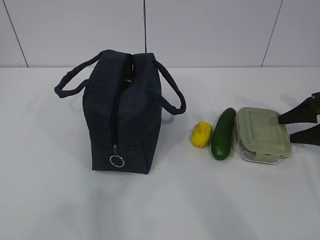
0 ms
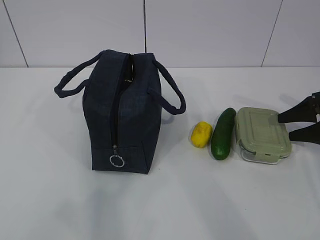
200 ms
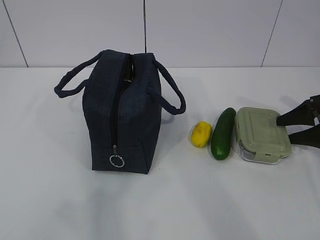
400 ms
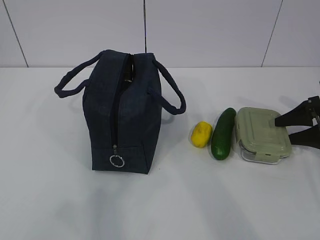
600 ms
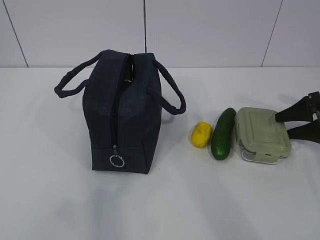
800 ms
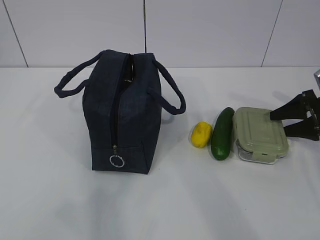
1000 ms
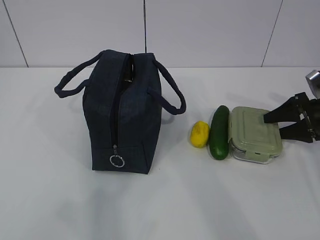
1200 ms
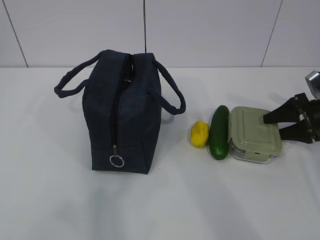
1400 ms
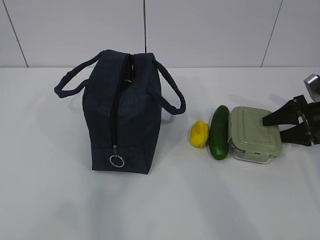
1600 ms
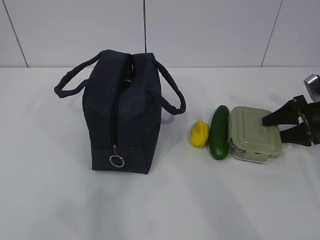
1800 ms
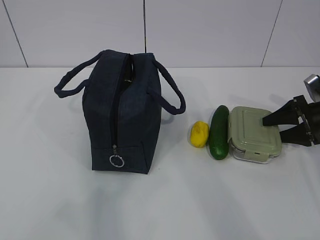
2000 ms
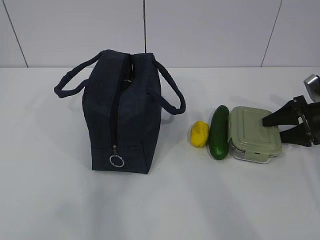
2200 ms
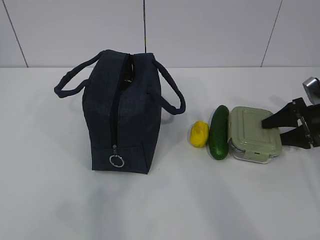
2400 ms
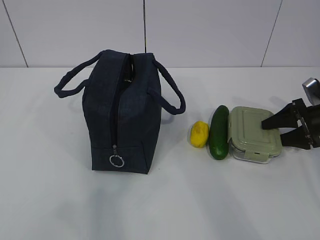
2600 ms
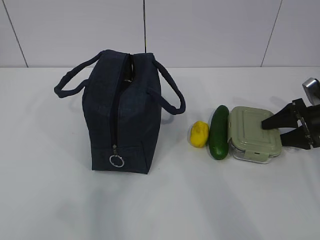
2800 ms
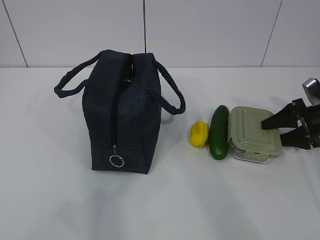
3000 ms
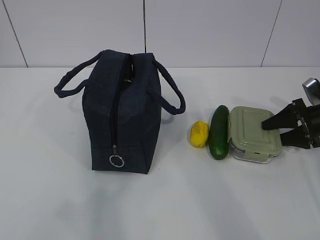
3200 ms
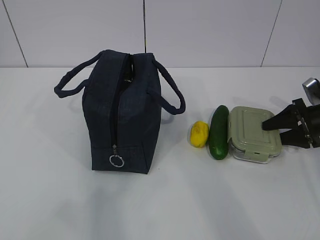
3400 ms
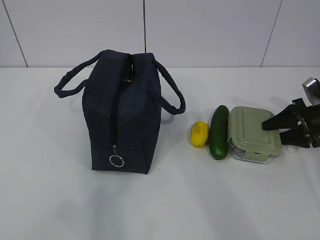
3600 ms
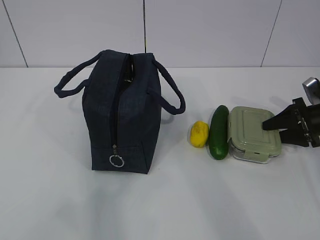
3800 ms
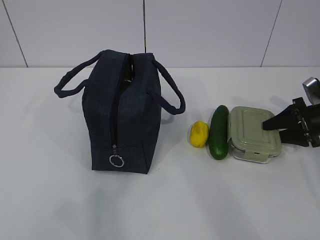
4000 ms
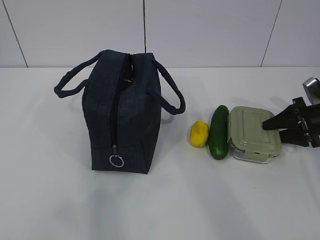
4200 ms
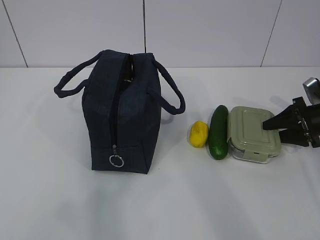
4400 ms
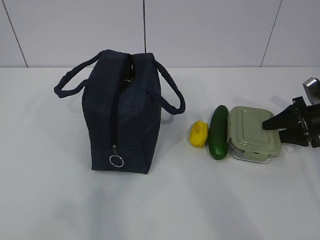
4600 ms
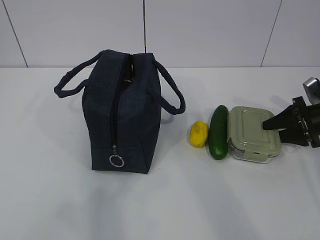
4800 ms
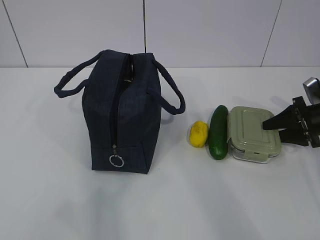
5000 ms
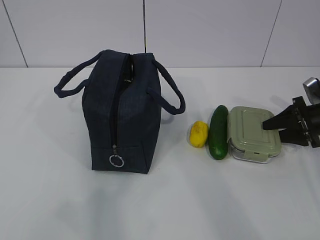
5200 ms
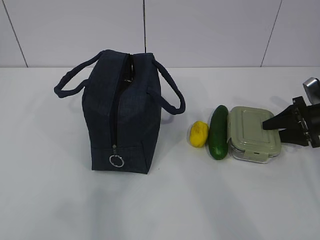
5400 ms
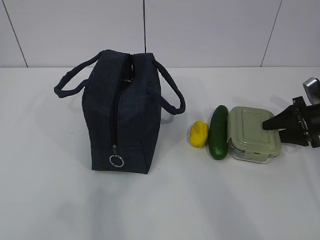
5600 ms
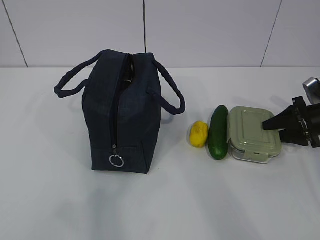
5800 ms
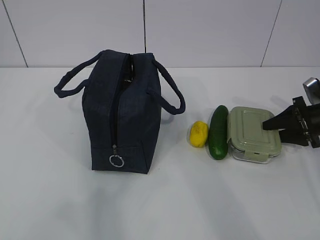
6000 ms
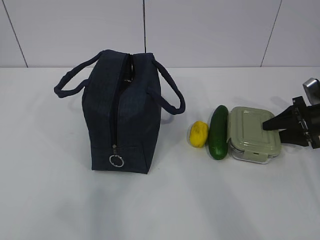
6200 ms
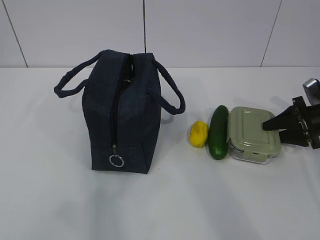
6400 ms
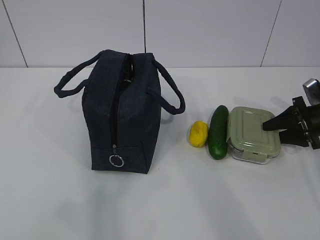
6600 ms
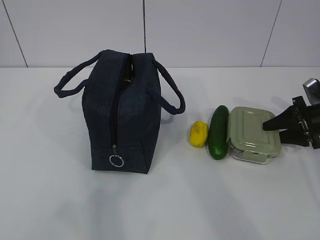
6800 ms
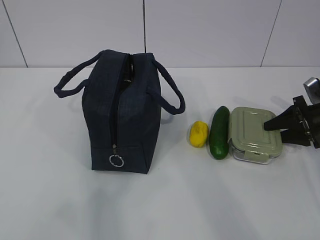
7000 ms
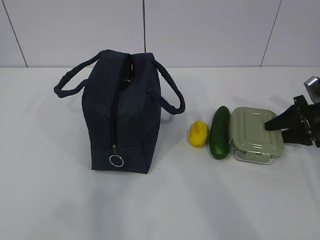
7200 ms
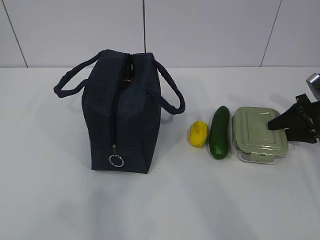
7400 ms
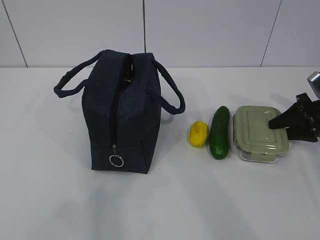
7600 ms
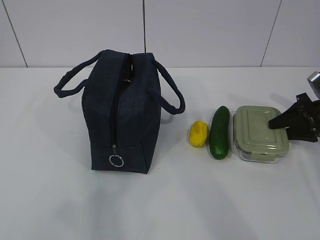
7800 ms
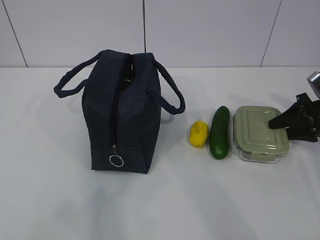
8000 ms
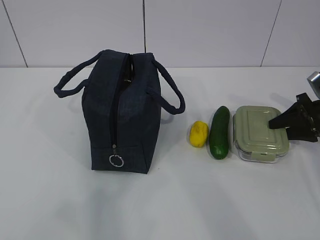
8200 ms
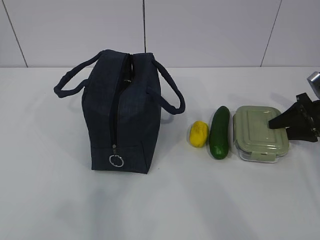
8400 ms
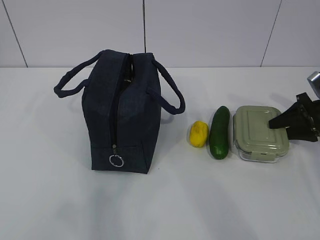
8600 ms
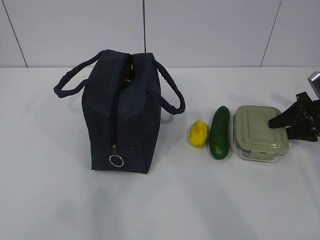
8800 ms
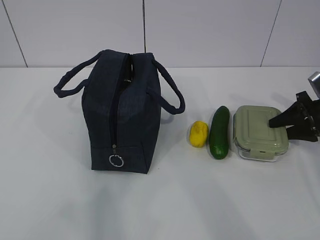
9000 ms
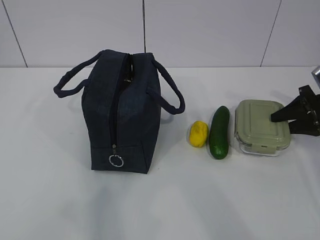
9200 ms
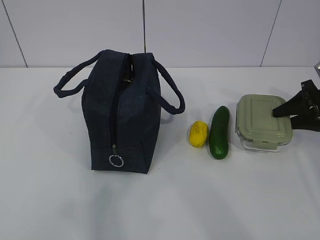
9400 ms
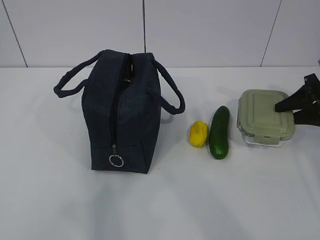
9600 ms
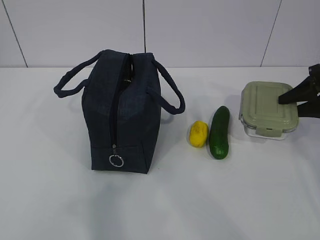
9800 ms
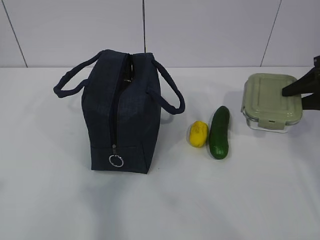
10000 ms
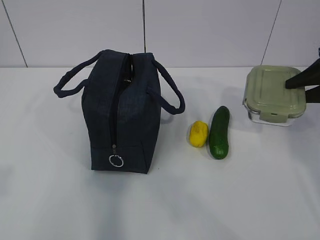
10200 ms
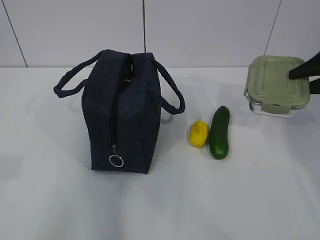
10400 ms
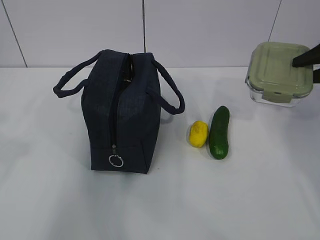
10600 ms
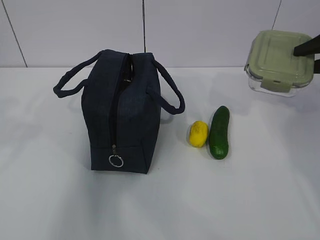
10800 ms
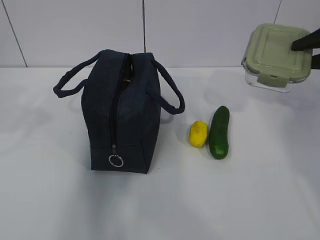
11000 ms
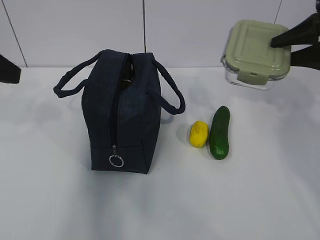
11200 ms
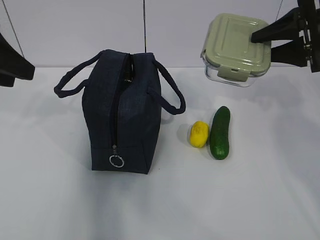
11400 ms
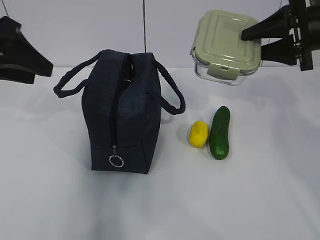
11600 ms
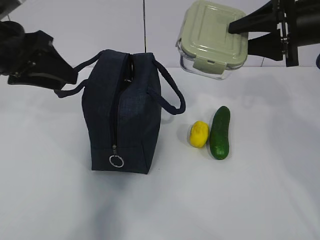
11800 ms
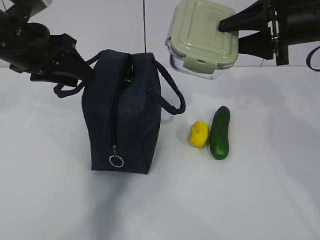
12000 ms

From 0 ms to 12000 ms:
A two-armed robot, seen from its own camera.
Step, from 0 ms to 6200 ms: Grab the lunch box with your right hand.
Step, from 6400 ms to 10200 ms: Grab the lunch bag with your left hand.
From 0 ms to 1600 ms: The grippers move only a little.
From 1600 ms to 6000 ms: Both grippers stay about where they are.
From 6000 ms to 7600 ms: There are only small adjustments of the grippers.
From 7600 ms to 9000 ms: Neither gripper changes place.
From 9000 ms to 10400 ms: The right gripper moves upward, roughly 10 cm.
From 10400 ms to 12000 ms: The left gripper is displaced forward by roughly 25 cm; the right gripper shifts about 15 cm to the left and upward.

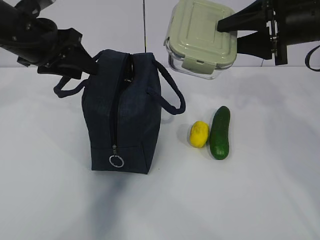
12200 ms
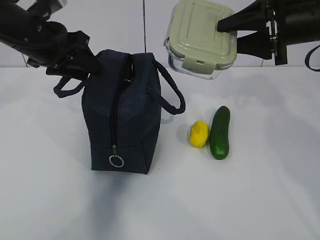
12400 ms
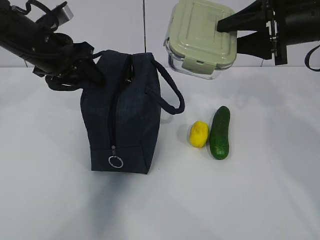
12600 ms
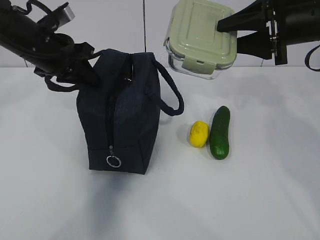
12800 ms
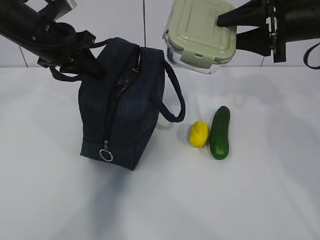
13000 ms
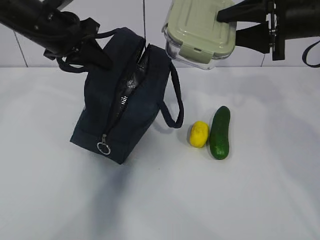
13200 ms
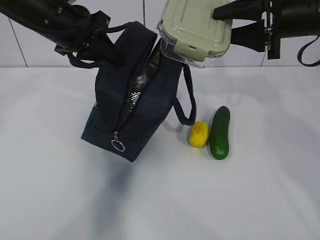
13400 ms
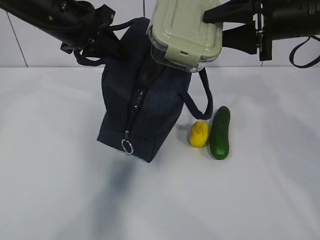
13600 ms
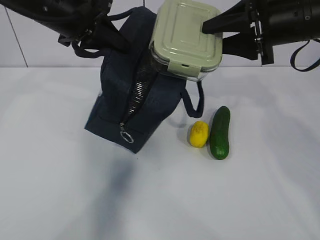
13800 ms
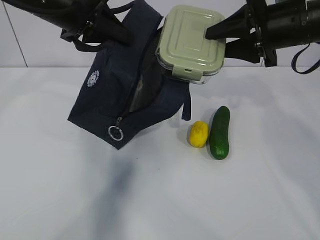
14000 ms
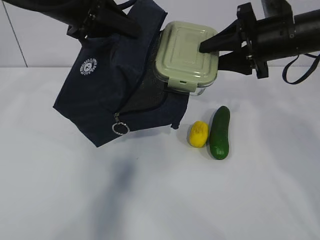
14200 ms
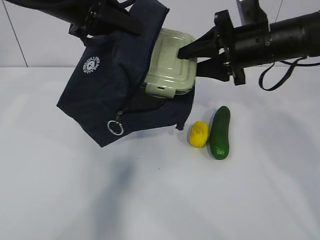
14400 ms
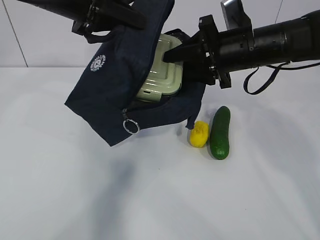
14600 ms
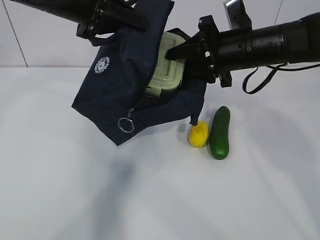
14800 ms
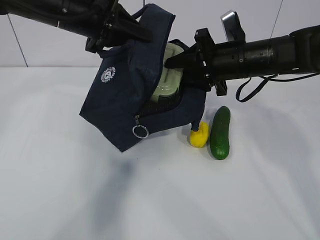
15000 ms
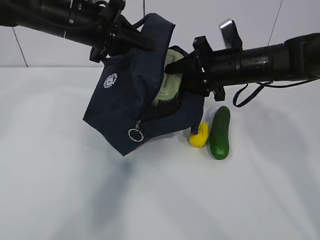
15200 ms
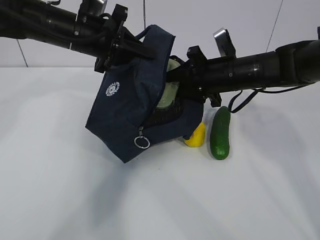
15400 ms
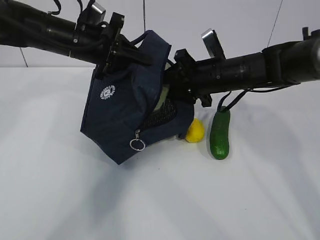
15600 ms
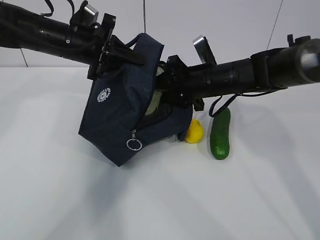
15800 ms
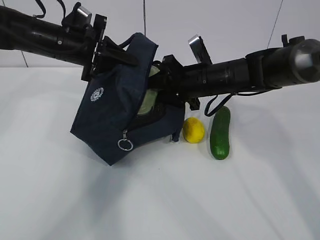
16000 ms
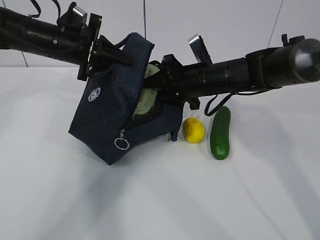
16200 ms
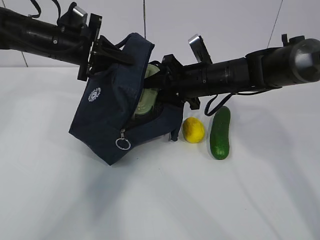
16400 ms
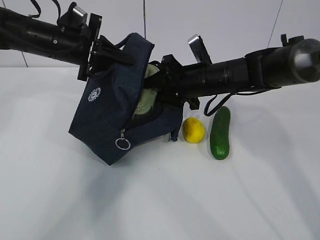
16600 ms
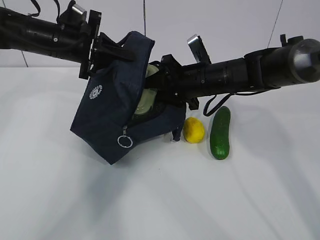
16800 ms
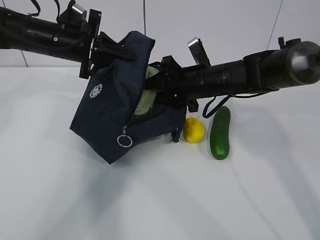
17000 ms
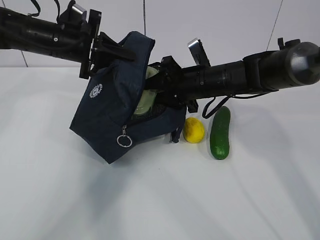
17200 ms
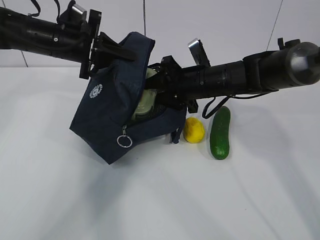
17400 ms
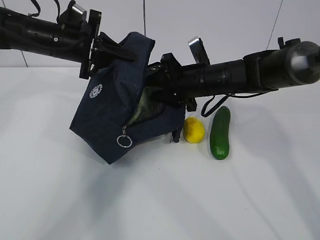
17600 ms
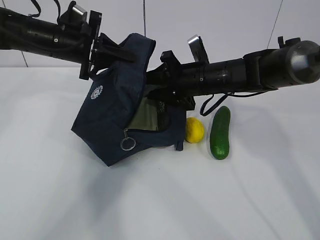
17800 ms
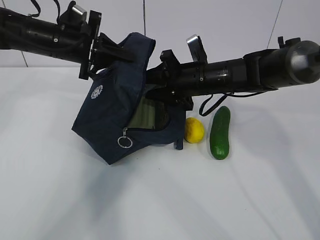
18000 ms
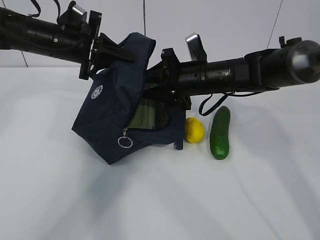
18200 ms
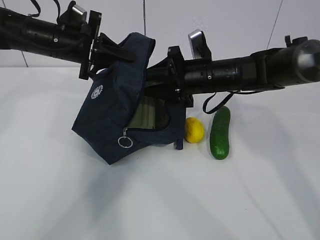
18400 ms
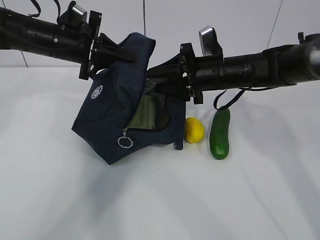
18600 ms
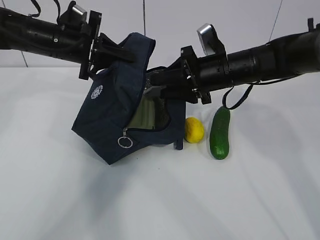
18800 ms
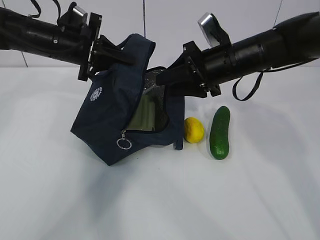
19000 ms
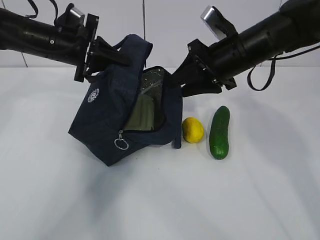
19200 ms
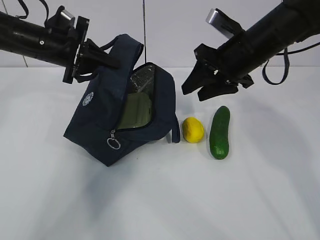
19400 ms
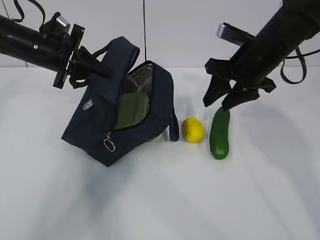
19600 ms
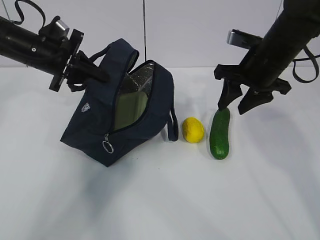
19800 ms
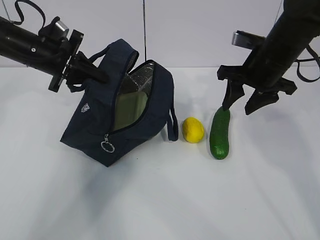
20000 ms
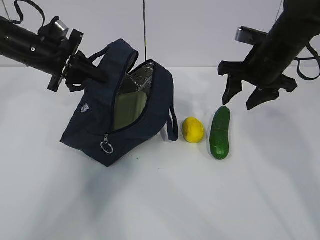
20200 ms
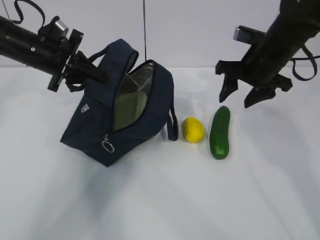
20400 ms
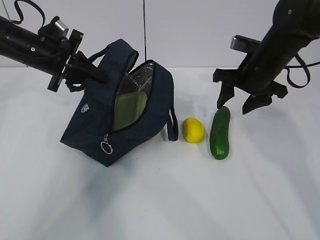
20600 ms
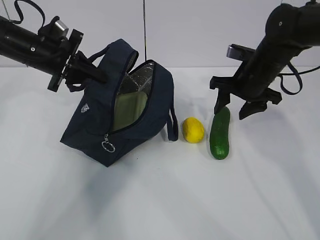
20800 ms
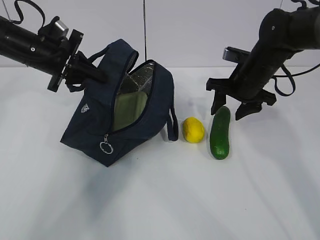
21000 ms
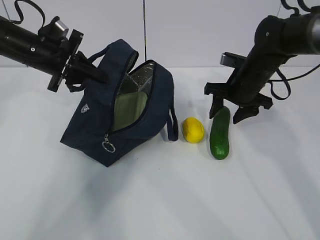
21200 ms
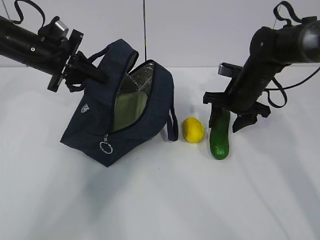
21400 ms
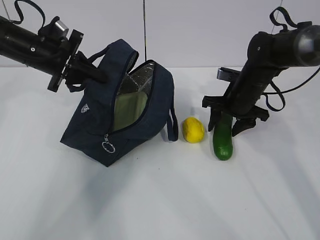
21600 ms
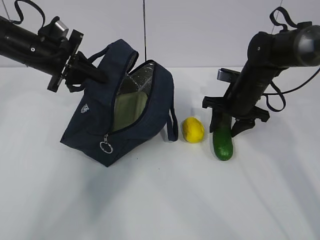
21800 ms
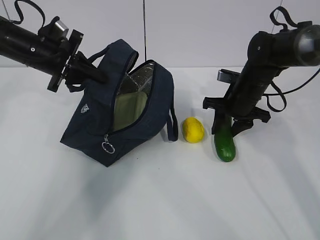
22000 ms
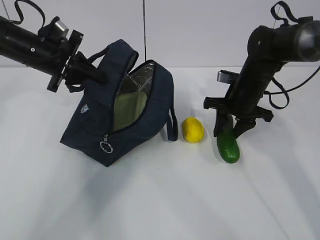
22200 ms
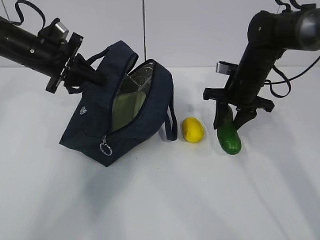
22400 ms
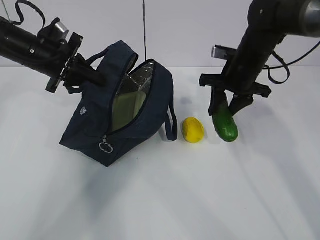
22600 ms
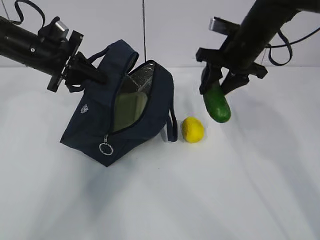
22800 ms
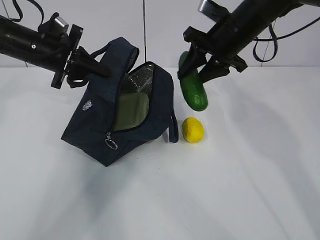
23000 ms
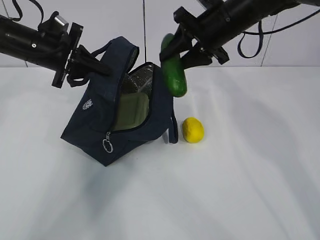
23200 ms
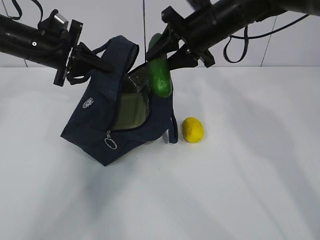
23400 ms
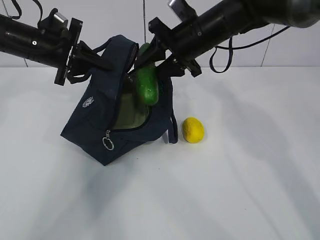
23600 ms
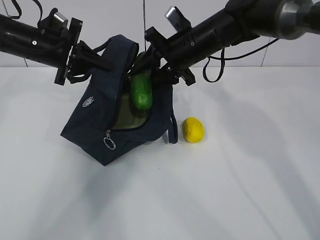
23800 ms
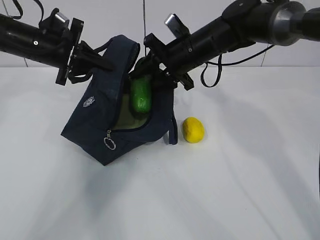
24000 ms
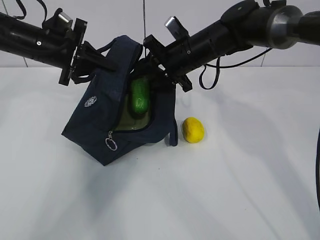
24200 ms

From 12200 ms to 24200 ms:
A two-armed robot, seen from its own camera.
Step, from 14000 ms to 17000 ms: Grab the cucumber with your right hand.
Step, from 17400 ms to 19600 ms: Place it into the bag with your right hand.
Step, from 19800 ms to 23200 ms: Grab the lemon with your right hand.
From 12200 ms to 13800 ms: The left gripper travels to the right by approximately 5 cm, and closes up.
From 13800 ms to 15200 ms: The right gripper shifts about 10 cm downward and to the left.
From 15200 ms to 16600 ms: The left gripper moves about 5 cm. Meanwhile the right gripper shifts by approximately 5 cm.
From 16600 ms to 18200 ms: The grippers move only a little.
From 18200 ms to 19800 ms: The right gripper shifts about 10 cm to the right and upward.
From 19800 ms to 21200 ms: The right gripper travels downward by about 5 cm.
From 21200 ms to 22600 ms: The grippers make only small movements.
From 22600 ms to 24200 ms: The right gripper moves to the left, roughly 10 cm.
